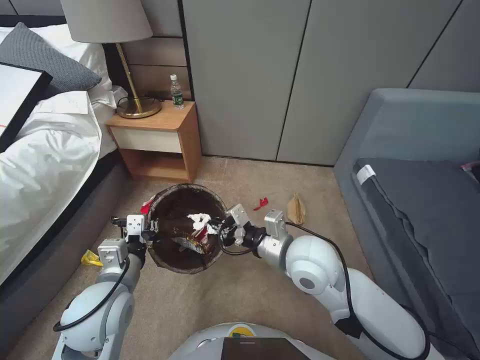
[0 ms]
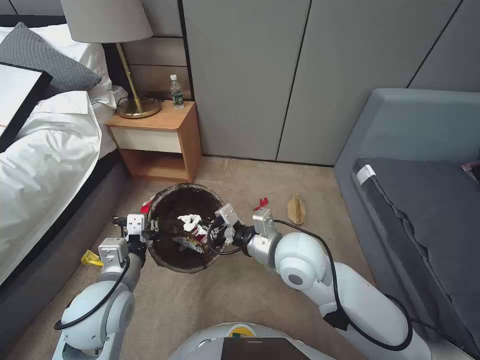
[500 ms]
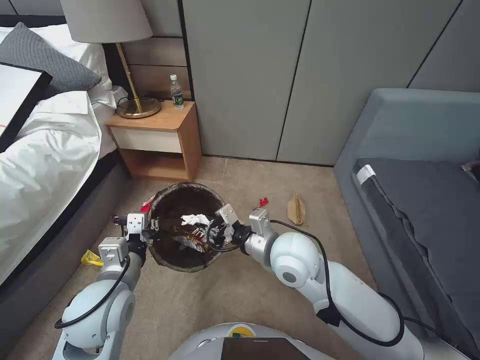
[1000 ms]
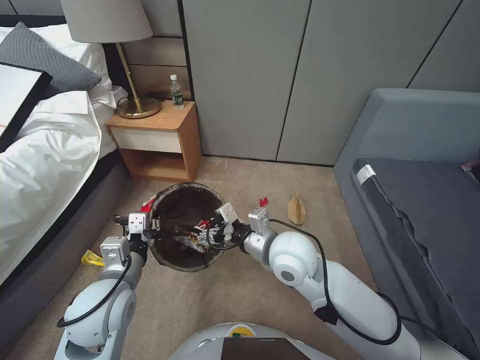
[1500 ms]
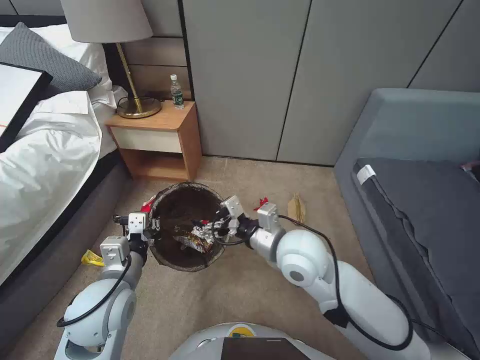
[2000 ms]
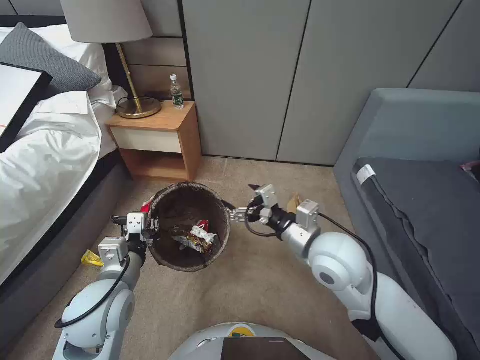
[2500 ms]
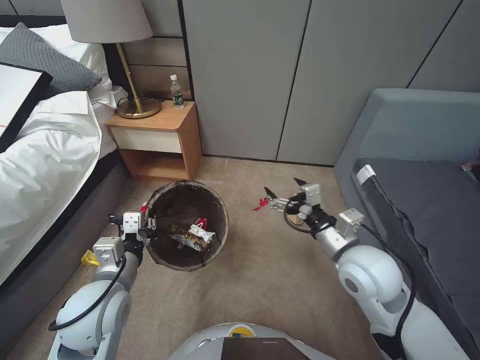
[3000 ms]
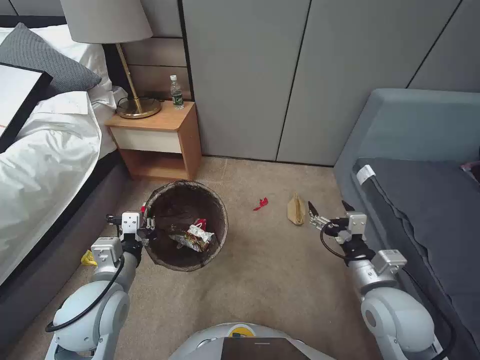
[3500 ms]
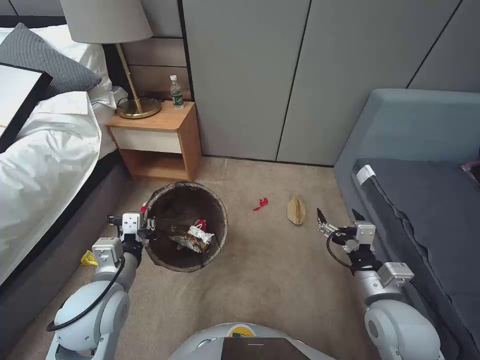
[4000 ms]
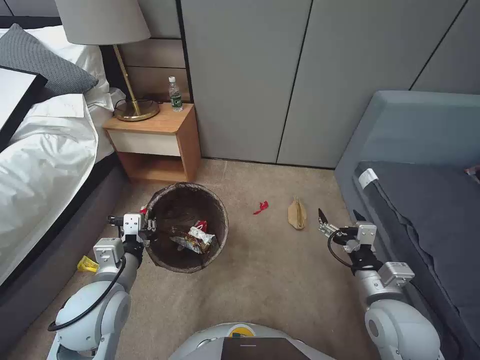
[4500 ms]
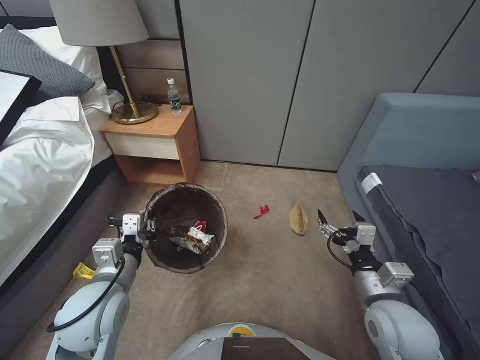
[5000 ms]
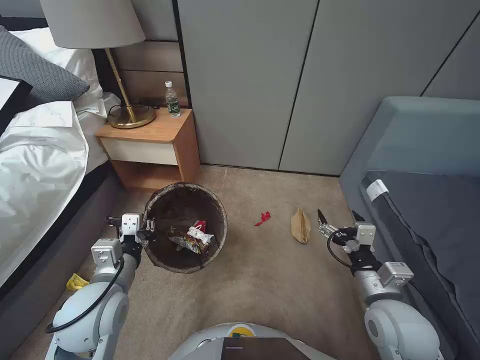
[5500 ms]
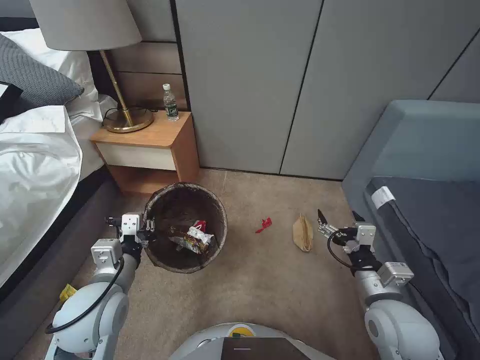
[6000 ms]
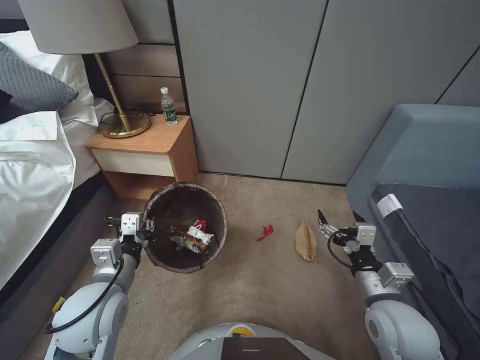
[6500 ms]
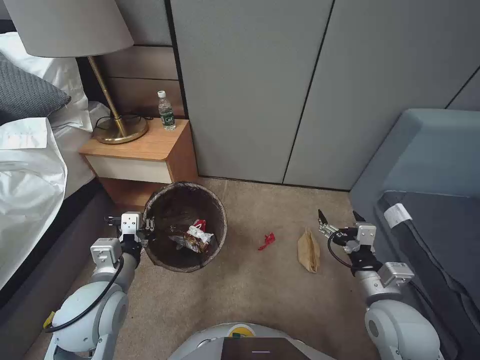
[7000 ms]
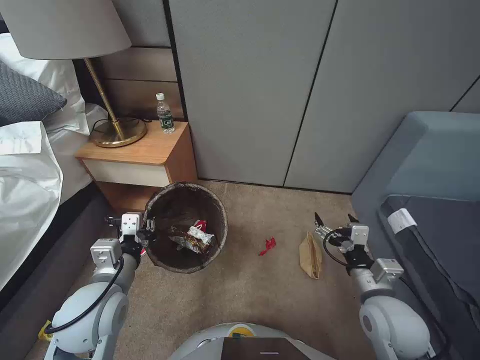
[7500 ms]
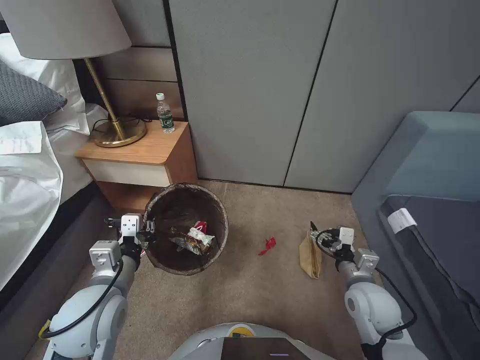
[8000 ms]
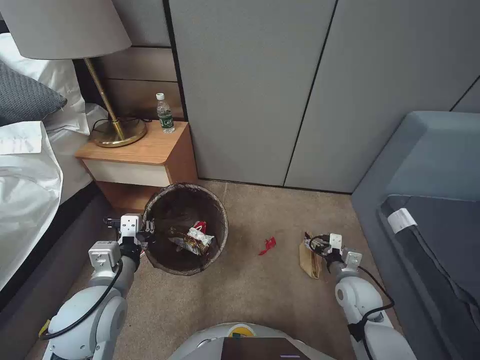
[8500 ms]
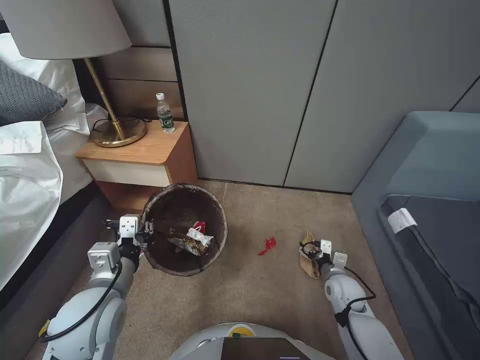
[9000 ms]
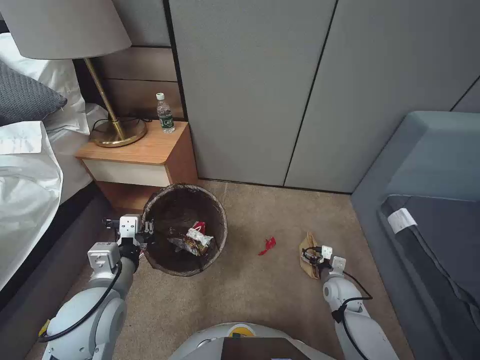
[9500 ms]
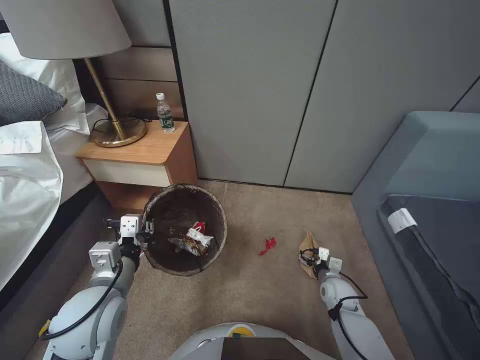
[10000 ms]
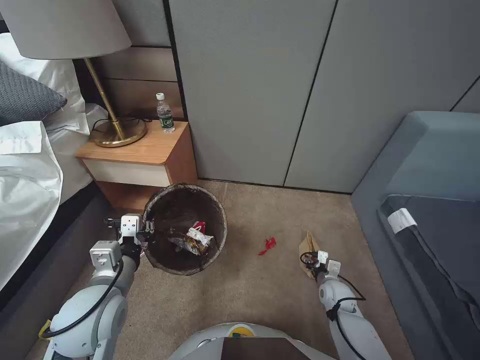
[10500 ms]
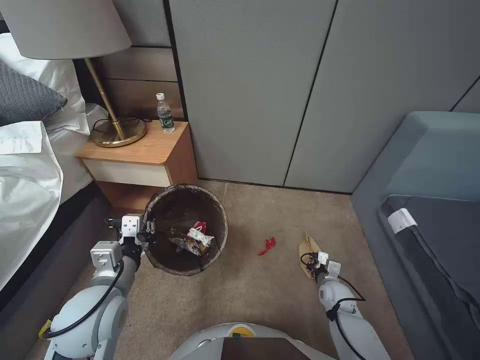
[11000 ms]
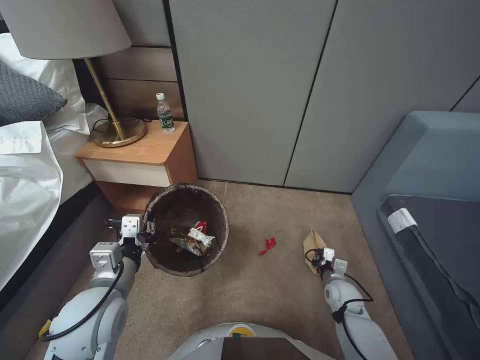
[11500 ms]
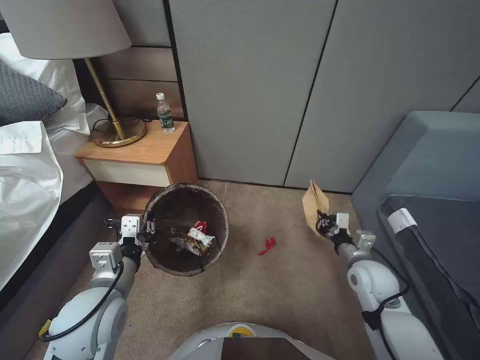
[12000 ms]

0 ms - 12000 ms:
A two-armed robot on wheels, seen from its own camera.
Task of the whole recording: Pick up the trash bin, then pick up the garbage from the floor and place it into the trash bin.
0 ms - 2000 ms: The right gripper opens.
2000 ms - 4000 ms: The right gripper goes about 20 cm to the right and backward.
4000 ms - 6000 ms: The two grippers keep their place.
6000 ms - 8000 ms: The right gripper moves downward, about 5 cm.
8000 ms - 10000 ms: The right gripper heads downward, covering some 15 cm.
10000 ms - 12000 ms: The right gripper is displaced upward by approximately 15 cm, and closes its fingers.

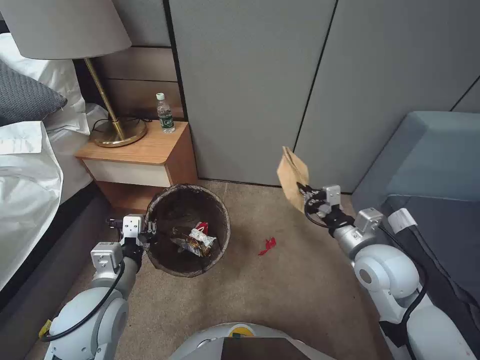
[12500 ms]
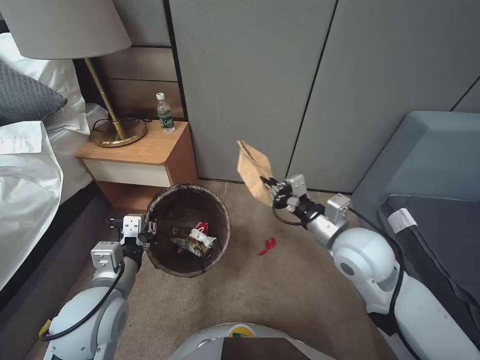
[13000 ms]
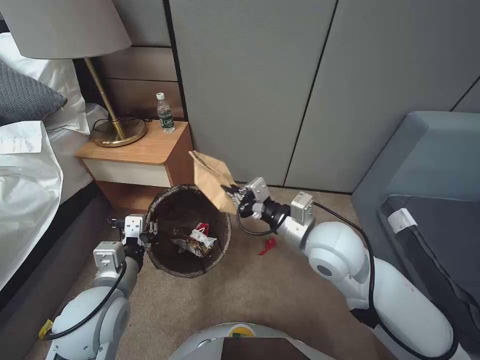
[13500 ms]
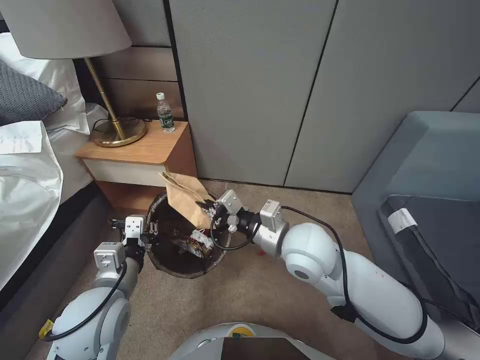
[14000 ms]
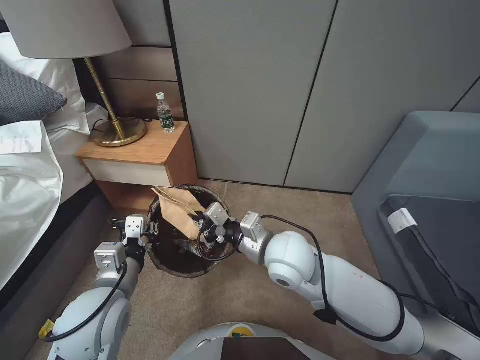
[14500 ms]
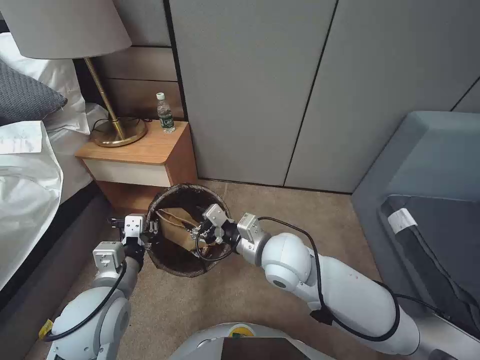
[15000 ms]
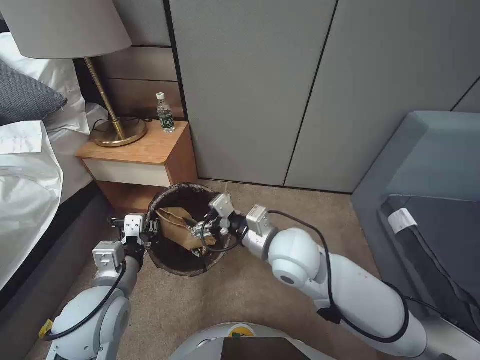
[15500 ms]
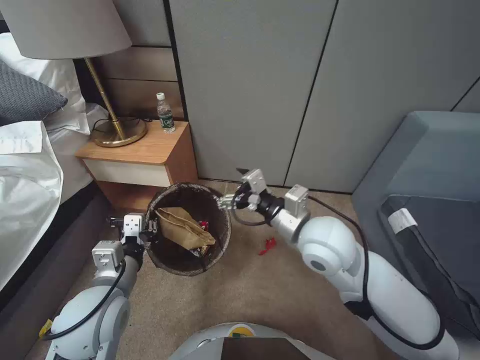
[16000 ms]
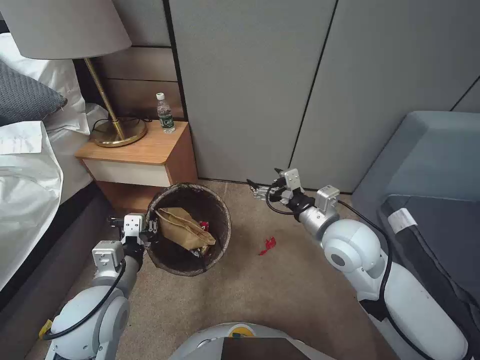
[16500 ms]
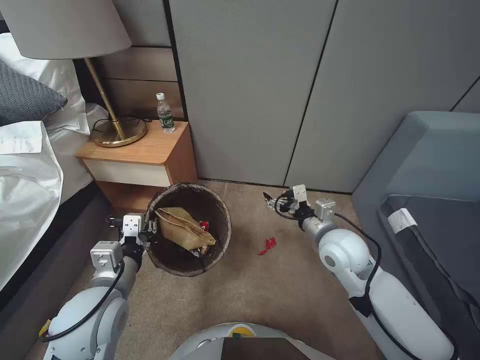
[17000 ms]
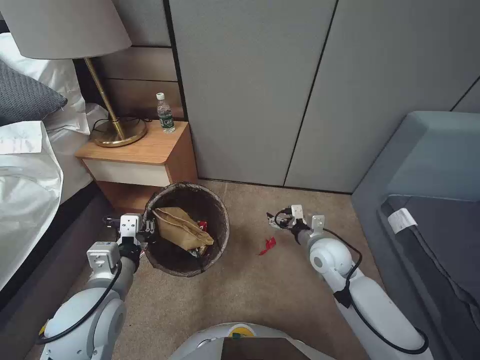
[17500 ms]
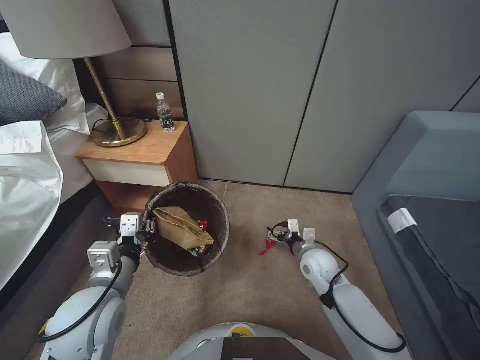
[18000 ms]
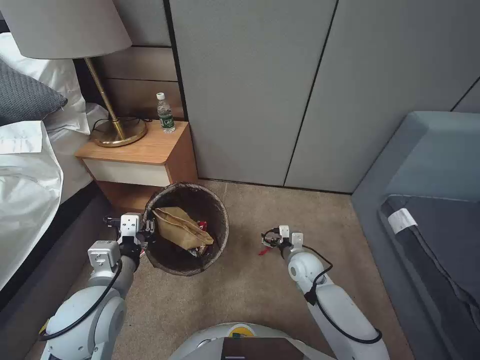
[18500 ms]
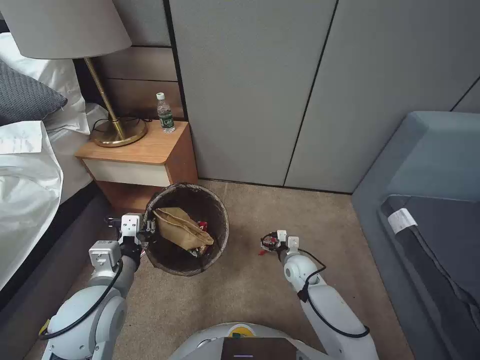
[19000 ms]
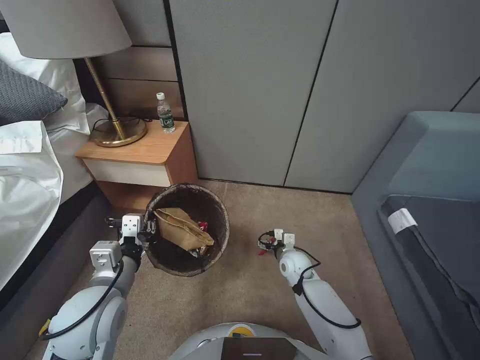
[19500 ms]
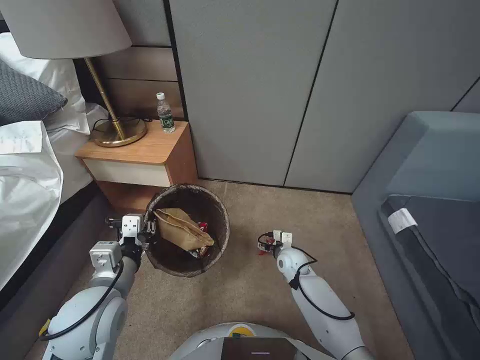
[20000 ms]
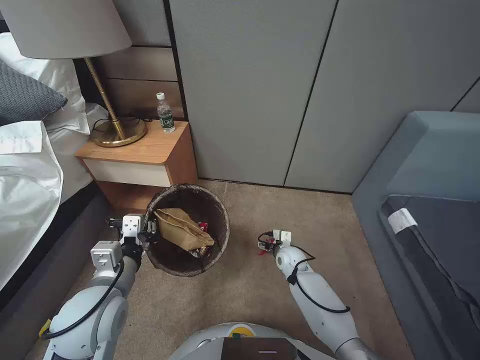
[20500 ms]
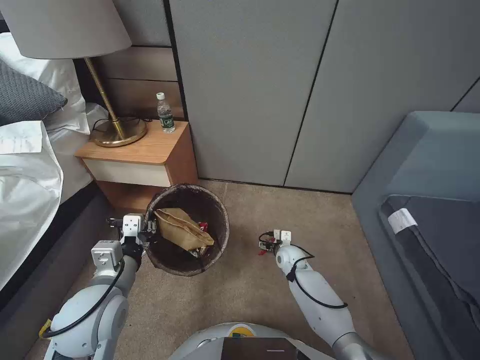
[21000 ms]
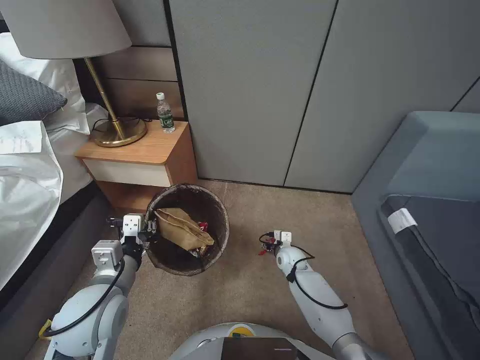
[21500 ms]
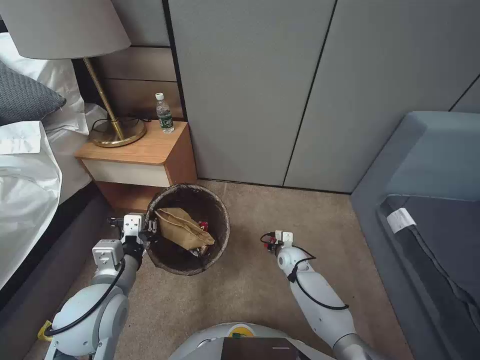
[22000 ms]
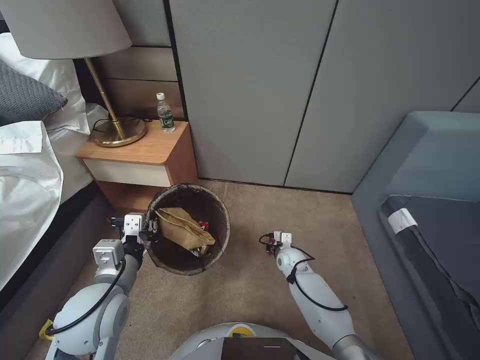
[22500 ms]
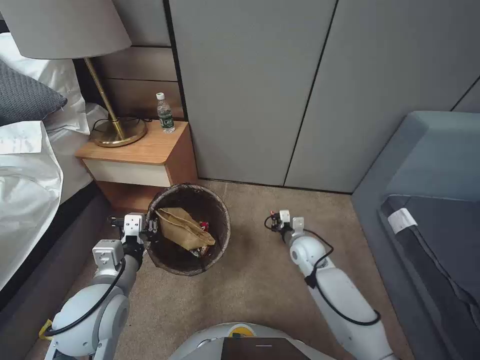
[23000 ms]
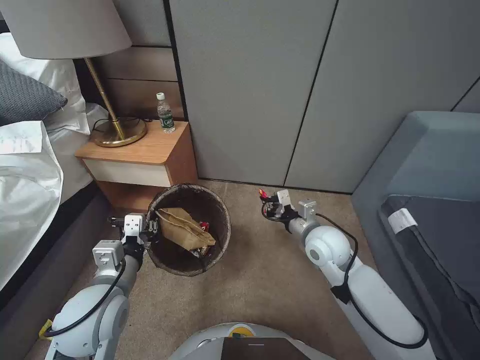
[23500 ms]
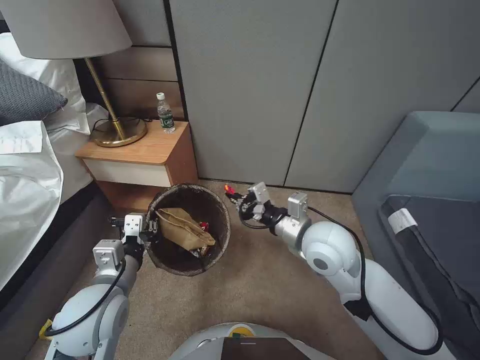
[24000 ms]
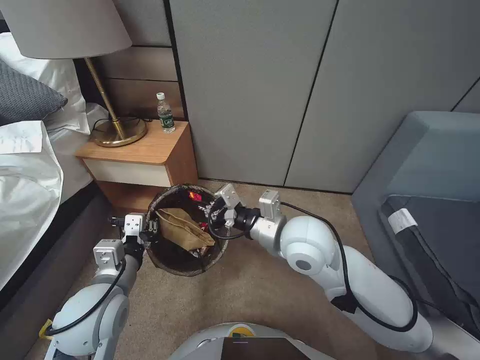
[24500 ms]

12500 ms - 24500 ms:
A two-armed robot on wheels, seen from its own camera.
Task of the whole recording: Pick up the trash bin, then pick up the garbage from the floor and place it into the trash bin.
12500 ms - 14500 ms: The right gripper shifts some 20 cm to the left.
14500 ms - 16500 ms: The right gripper goes about 10 cm to the right, and opens up.
16500 ms - 18500 ms: The right gripper goes roughly 25 cm downward.
18500 ms - 20500 ms: The right gripper heads downward, covering approximately 5 cm.
22500 ms - 24500 ms: The right gripper shifts approximately 35 cm upward.

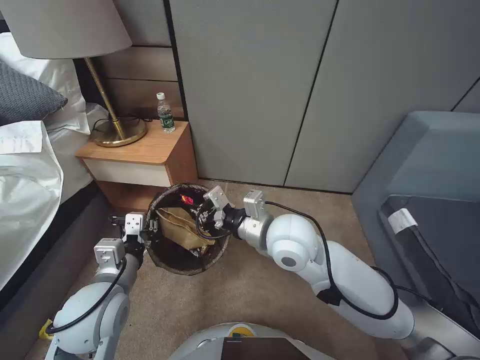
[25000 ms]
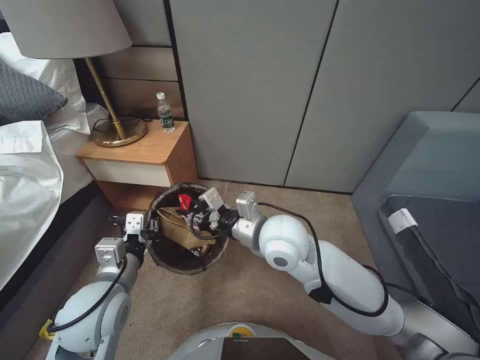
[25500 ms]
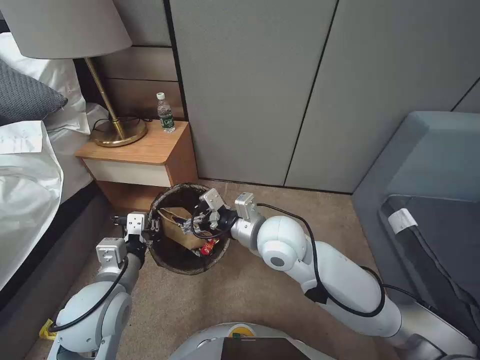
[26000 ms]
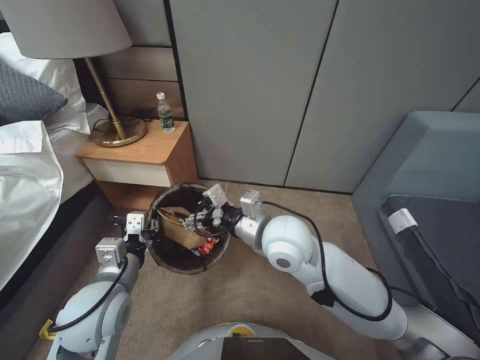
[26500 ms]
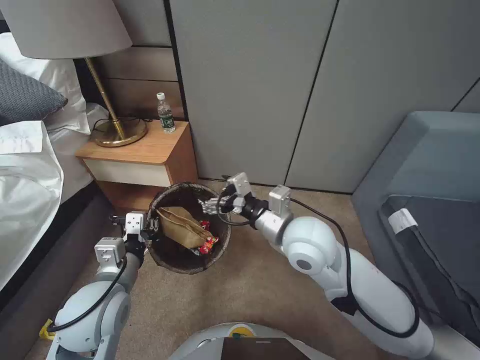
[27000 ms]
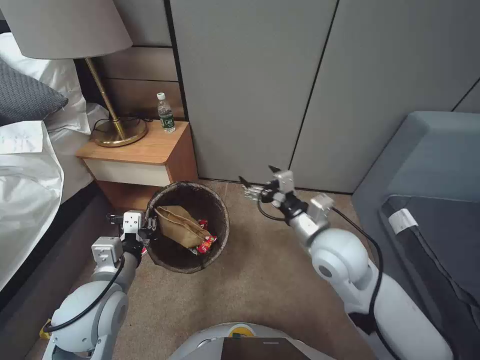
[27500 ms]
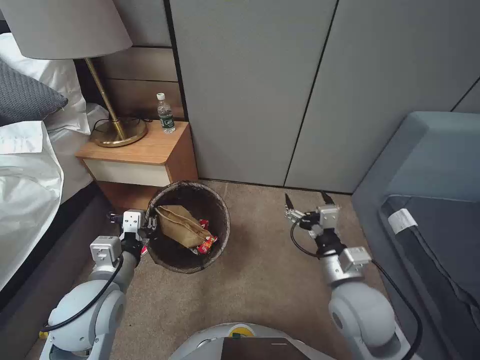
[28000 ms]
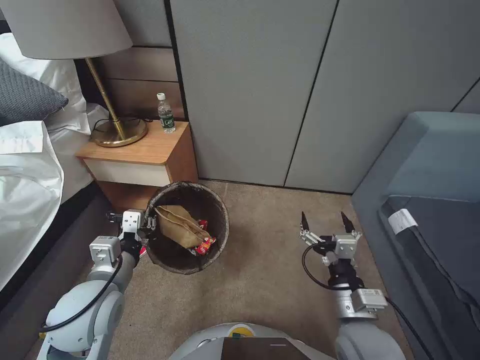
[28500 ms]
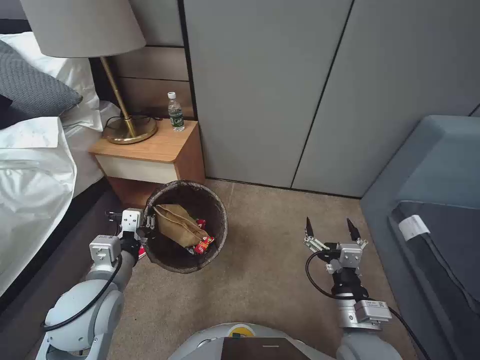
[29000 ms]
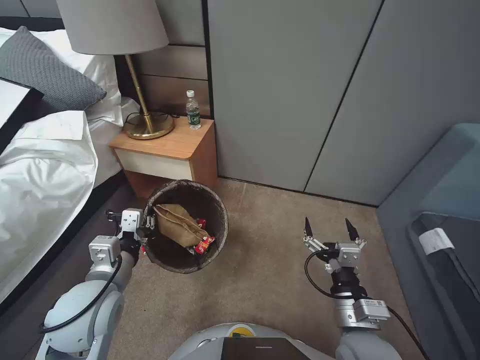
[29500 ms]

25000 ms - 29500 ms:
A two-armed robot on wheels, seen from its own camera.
Task of the whole recording: Pick up the trash bin, then pick up the garbage from the floor and place it into the trash bin.
25000 ms - 27000 ms: The right gripper opens its fingers.
27000 ms - 29500 ms: The right gripper goes approximately 25 cm backward, downward and to the right.
